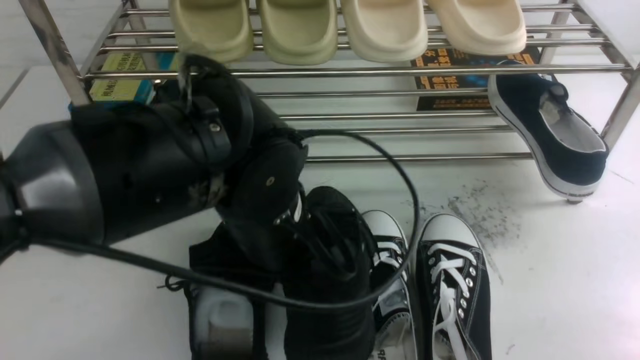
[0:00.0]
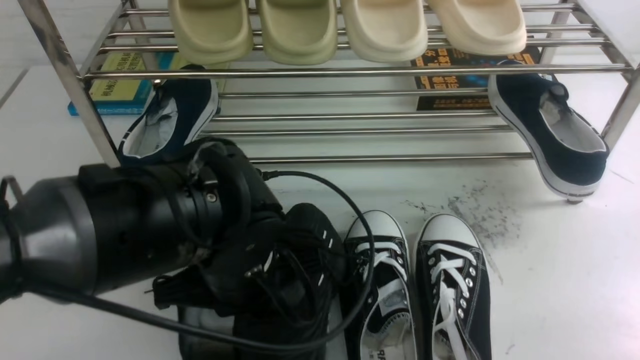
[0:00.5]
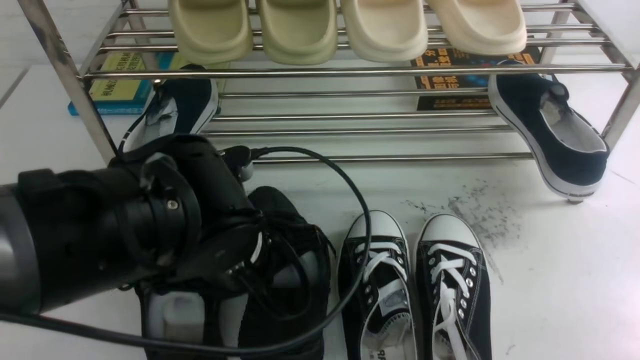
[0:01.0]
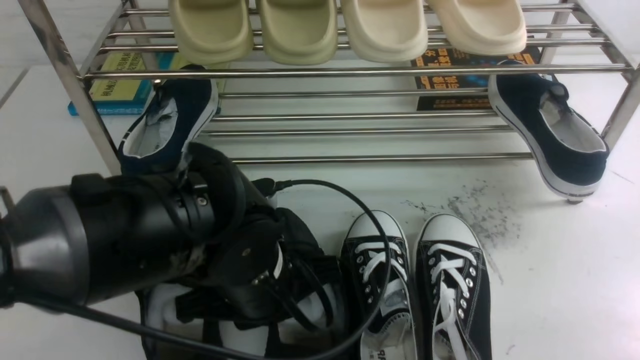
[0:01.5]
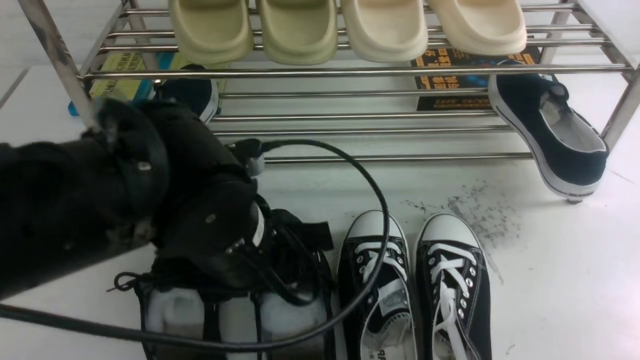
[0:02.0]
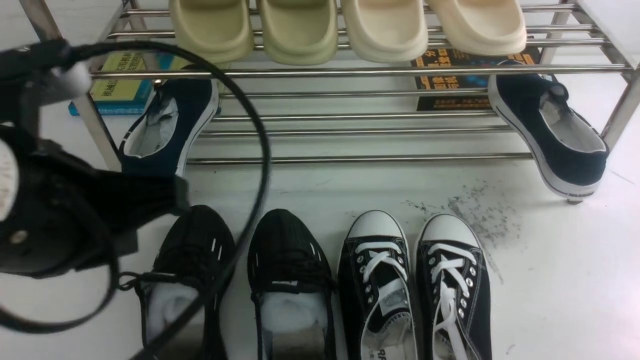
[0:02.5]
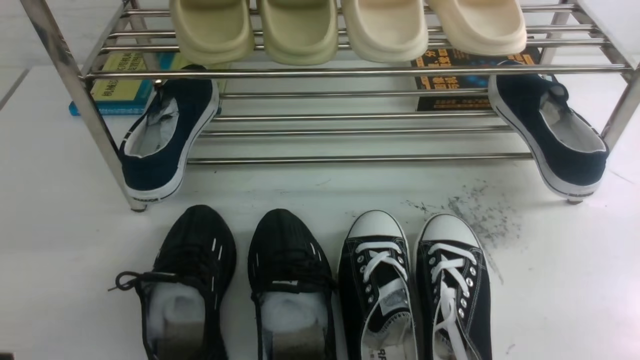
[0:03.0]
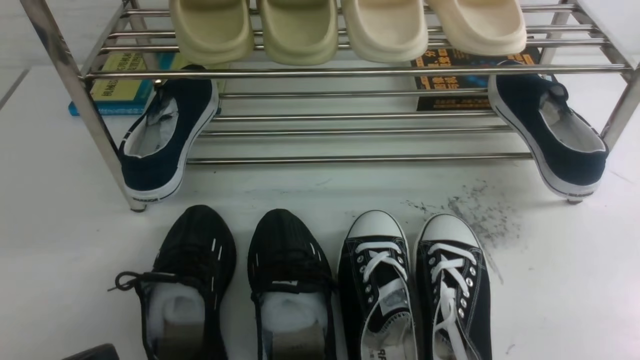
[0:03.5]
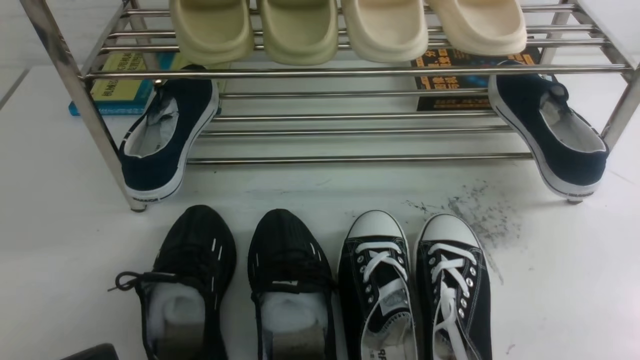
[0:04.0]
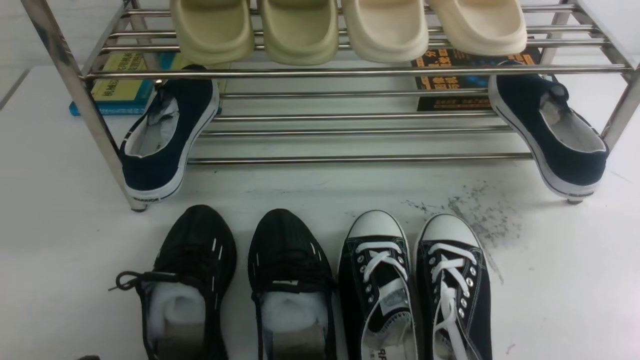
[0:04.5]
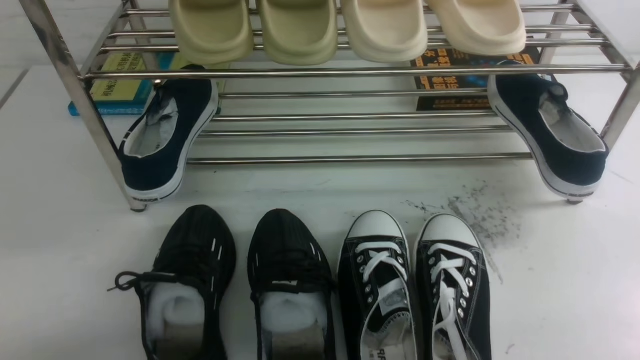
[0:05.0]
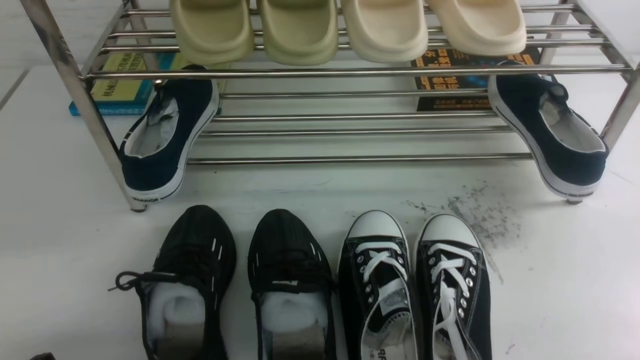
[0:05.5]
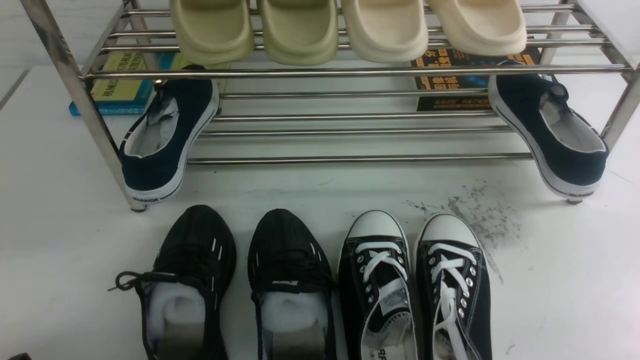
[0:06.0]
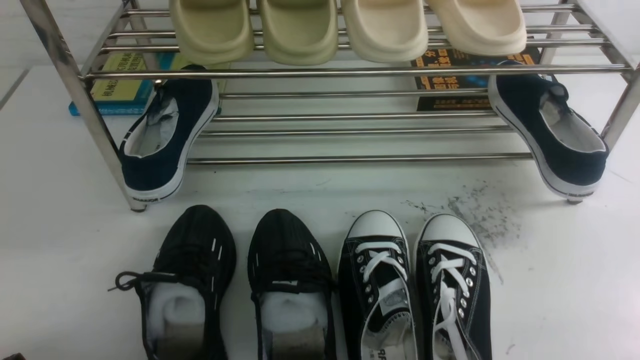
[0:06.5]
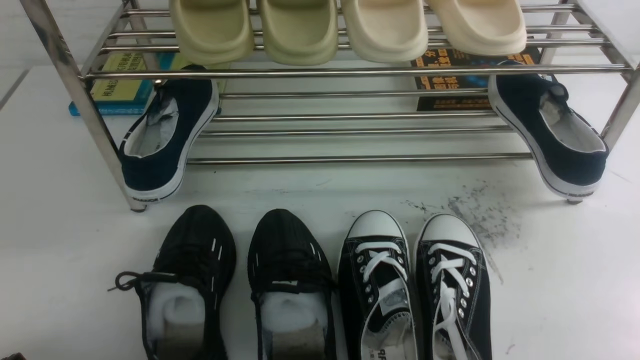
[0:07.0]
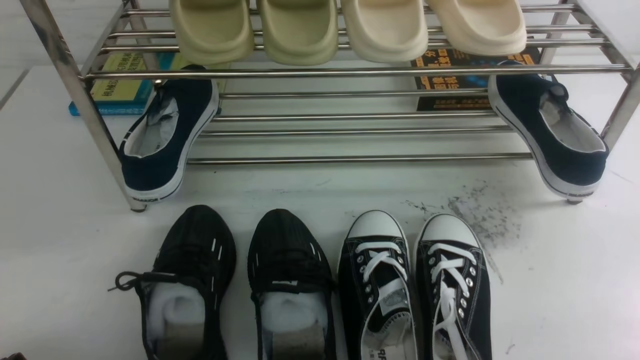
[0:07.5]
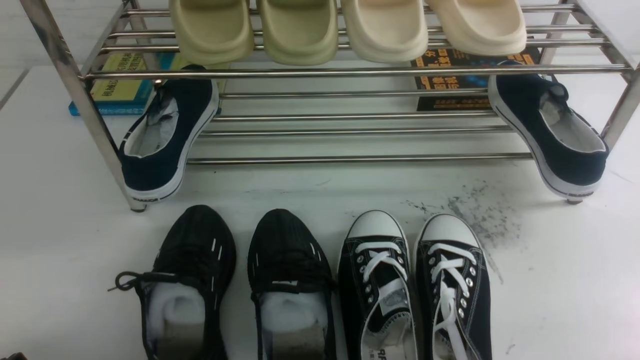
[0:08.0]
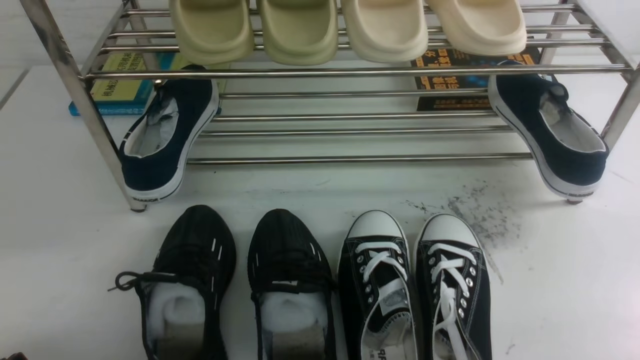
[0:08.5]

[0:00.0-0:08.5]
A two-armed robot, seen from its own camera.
Step, 0:00.0 to 0:02.0: Use your left arm to remove the clamped shoe from the shoe rack and put it down.
0:00.0 to 0:02.0: The left gripper opens up.
0:02.0 to 0:04.0: The left gripper moves to the left and backward, about 20 cm, and closes its fingers.
0:06.5 to 0:08.5: Both grippers stay put.
